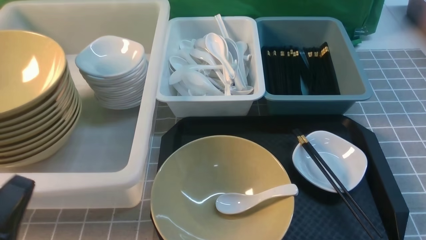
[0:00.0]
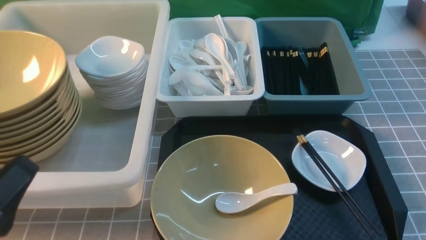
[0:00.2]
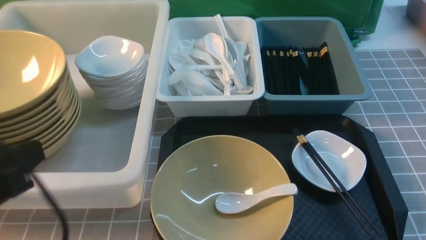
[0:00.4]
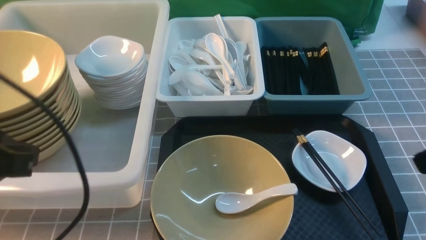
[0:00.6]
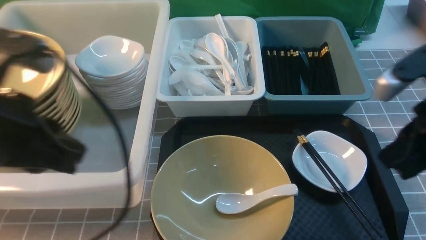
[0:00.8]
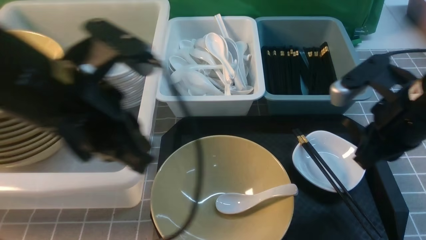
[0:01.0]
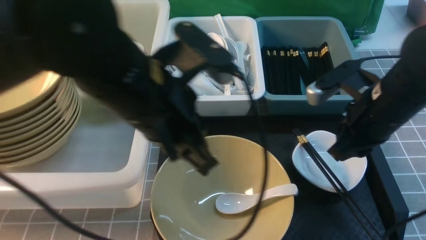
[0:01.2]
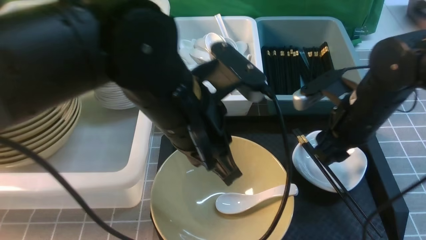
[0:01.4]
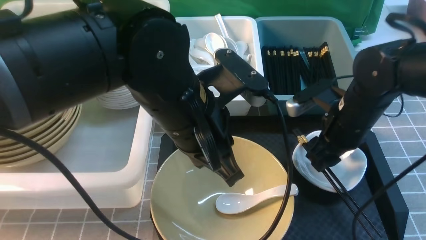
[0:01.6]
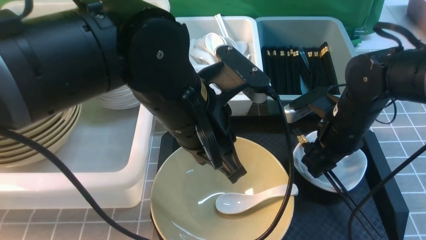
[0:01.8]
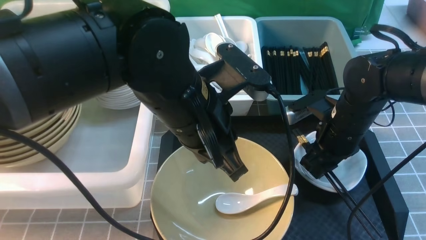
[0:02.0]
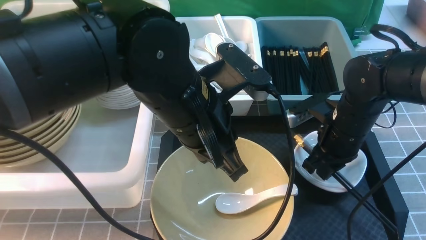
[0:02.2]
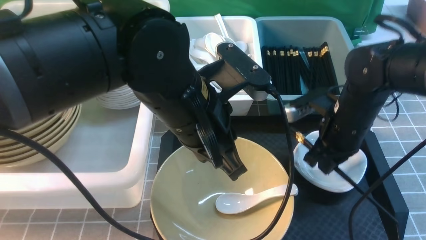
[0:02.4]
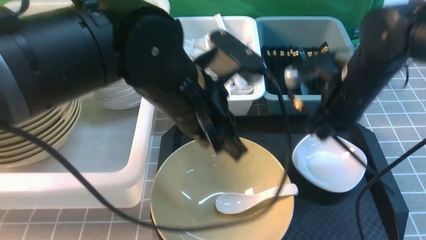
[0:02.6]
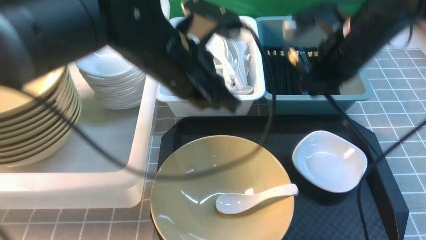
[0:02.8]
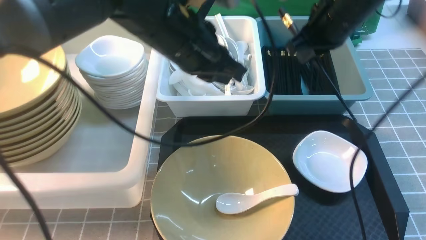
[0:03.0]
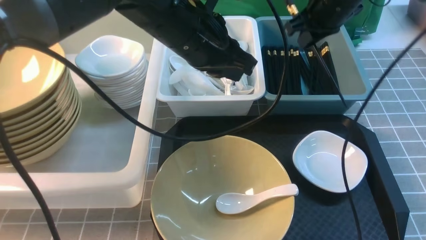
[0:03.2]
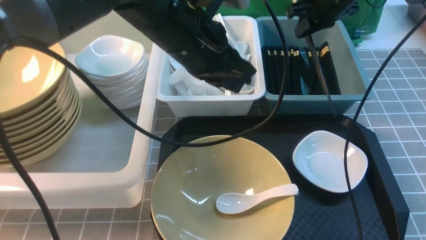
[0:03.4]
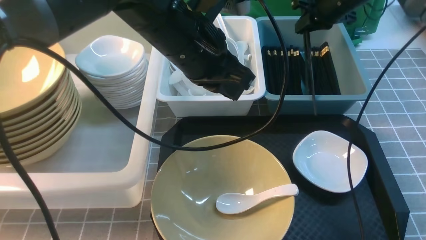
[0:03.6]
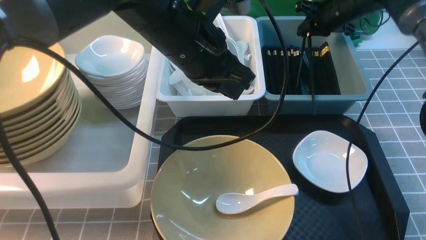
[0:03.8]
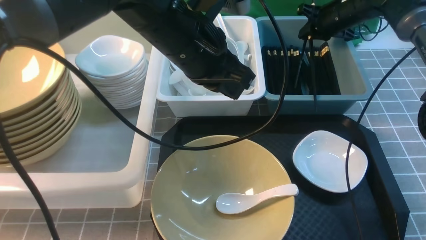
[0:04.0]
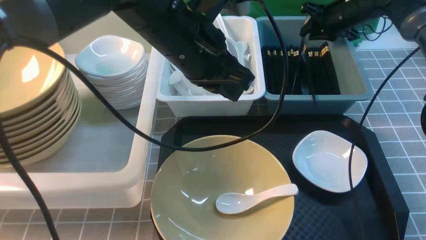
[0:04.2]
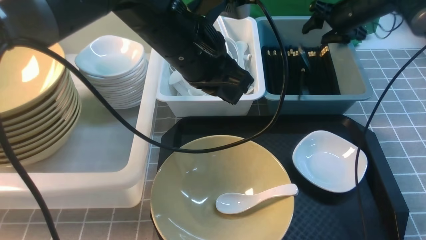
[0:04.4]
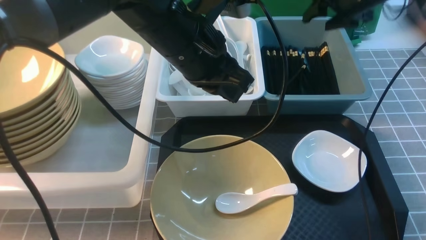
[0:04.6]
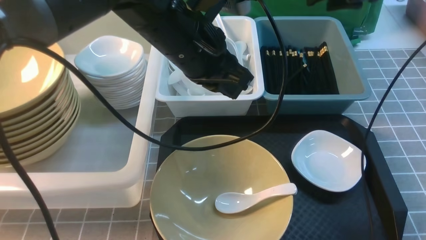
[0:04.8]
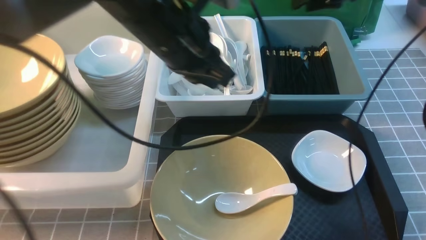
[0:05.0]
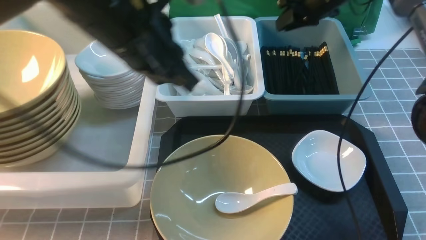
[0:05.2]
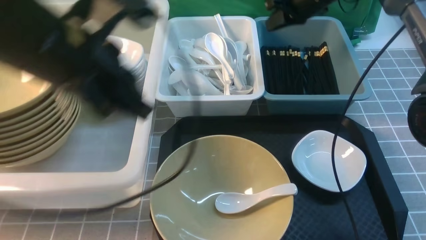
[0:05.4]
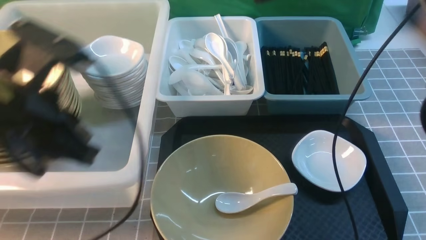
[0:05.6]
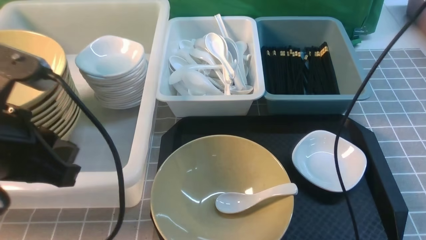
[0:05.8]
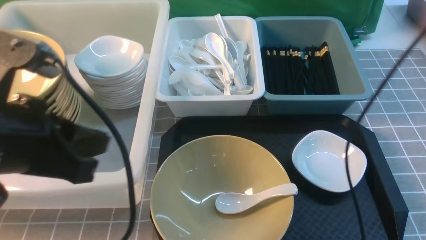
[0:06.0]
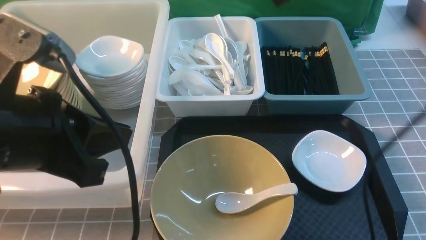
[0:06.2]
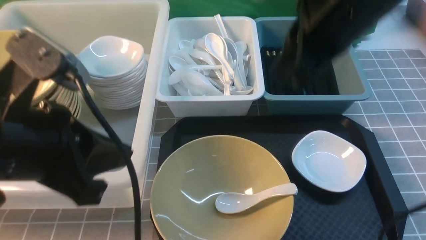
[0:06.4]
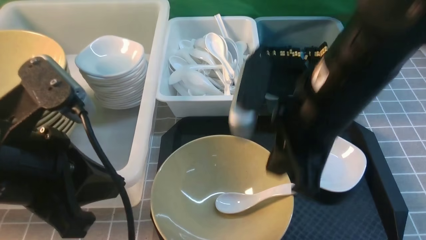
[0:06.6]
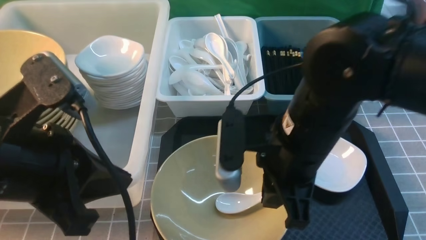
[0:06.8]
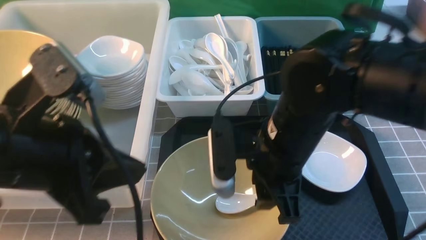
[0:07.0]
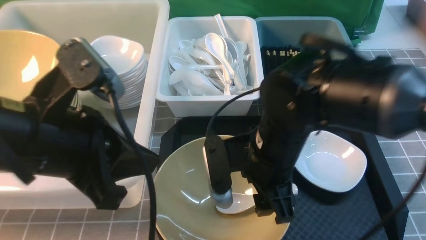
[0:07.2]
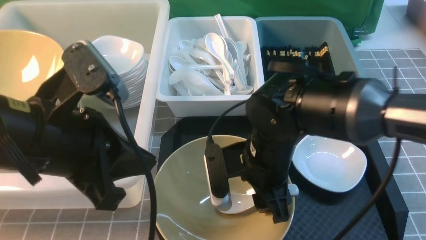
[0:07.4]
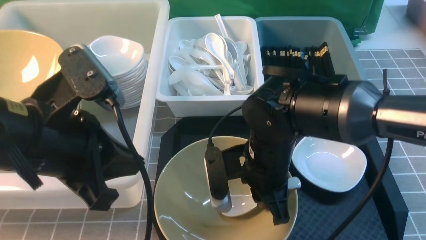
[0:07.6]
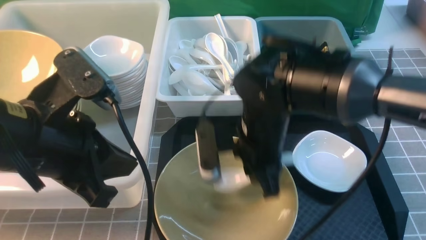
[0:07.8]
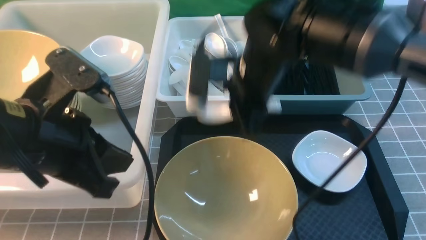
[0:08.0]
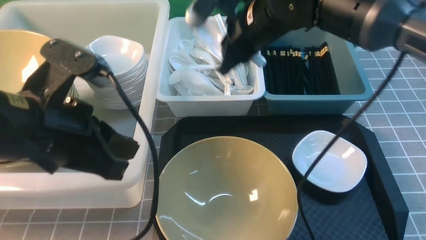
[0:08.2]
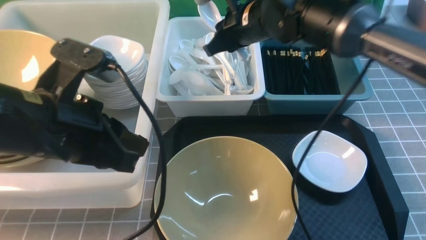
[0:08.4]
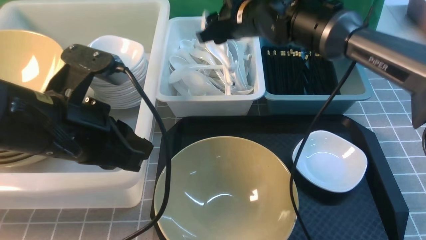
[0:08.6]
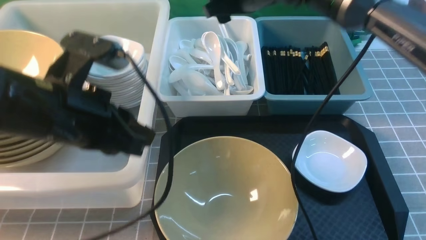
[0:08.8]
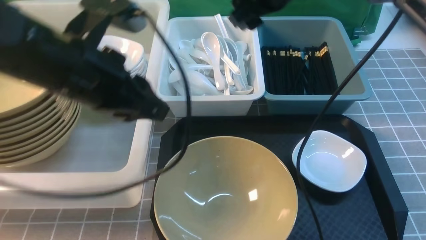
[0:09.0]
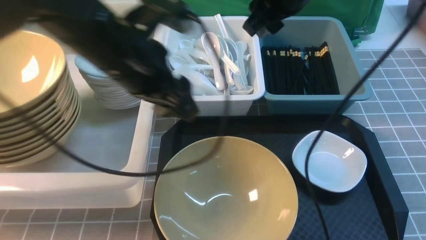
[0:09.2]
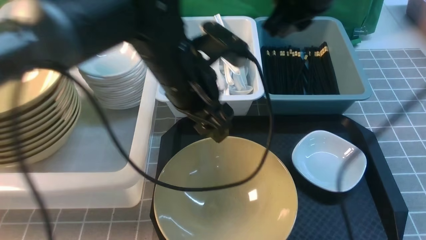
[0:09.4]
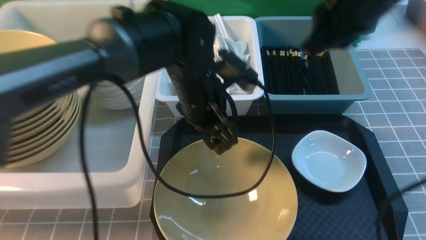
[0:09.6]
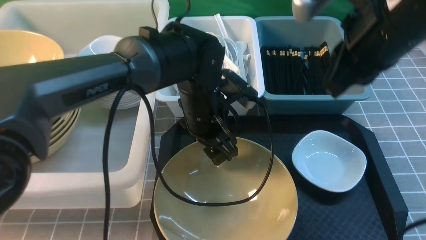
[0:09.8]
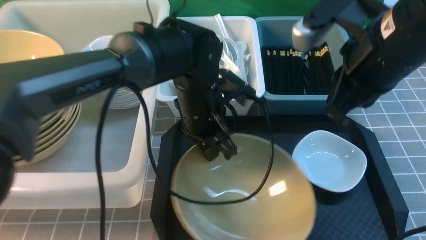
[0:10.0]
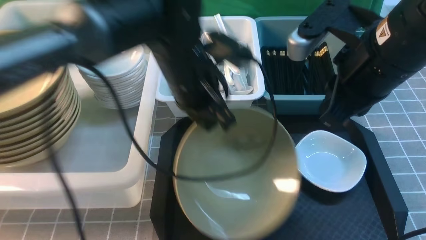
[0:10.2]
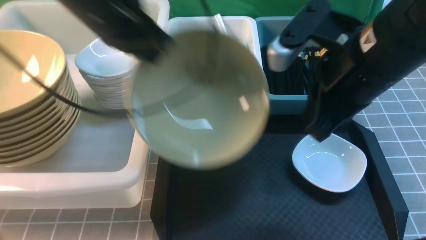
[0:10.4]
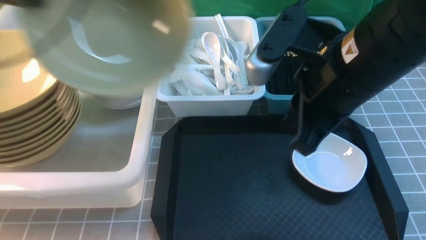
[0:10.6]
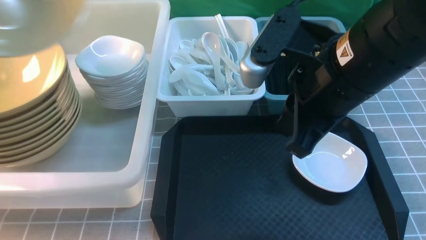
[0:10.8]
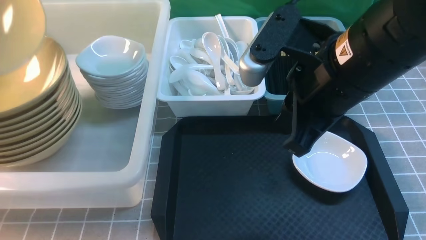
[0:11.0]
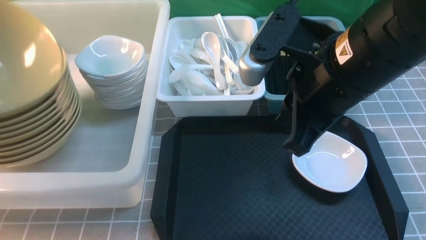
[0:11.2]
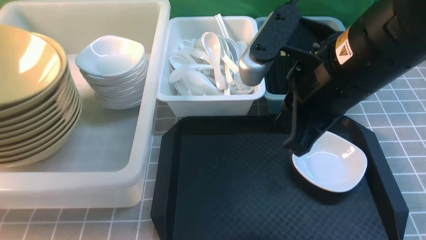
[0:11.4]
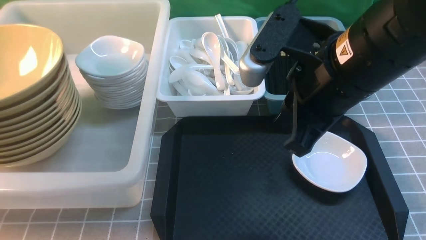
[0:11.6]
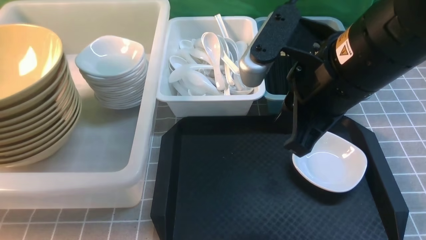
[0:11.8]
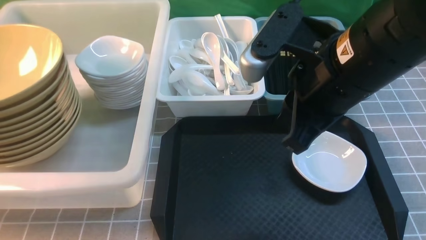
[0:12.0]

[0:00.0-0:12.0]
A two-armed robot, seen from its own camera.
Task of the whole recording: on grey table put chopsticks spoon bowls plates into blue grey white boxes.
Step, 0:00.0 to 0:02.2: use the right arm to grab the chopsticks.
Step, 0:02.6 to 0:04.4: use the right arm to put the chopsticks into the small storage box on the right.
Step, 0:04.6 to 0:07.8: use the right arm to grab the soup spoon in the middle.
Step, 0:08.0 to 0:08.6: use the right arm to put the soup spoon into the small storage box in the middle.
Step, 0:08.8 to 0:10.2: use the left arm to grab the yellow noodle bowl on the left.
Step, 0:10.4 to 0:11.4: use the left arm to put the noodle bowl into the large storage box on the left.
0:00.0 to 0:01.6: The left gripper moves to the right and forward, roughly 25 cm, while the right gripper is displaced forward by some 25 cm, and opens its fingers.
0:01.6 to 0:03.0: The right gripper travels upward and forward by about 15 cm, and closes its fingers. The left gripper travels forward by approximately 10 cm.
0:03.0 to 0:04.4: The right gripper heads forward, to the right and downward, covering roughly 20 cm, and opens its fingers.
0:04.4 to 0:06.0: The right gripper heads upward, backward and to the left, covering about 30 cm, and closes up. The left gripper heads backward and to the left, covering about 20 cm.
0:06.0 to 0:07.6: The right gripper heads downward and backward, covering about 25 cm, and opens up.
0:07.6 to 0:09.0: The left gripper heads forward, covering roughly 10 cm, and opens up. The right gripper shifts about 20 cm upward and forward, and opens.
0:09.0 to 0:10.4: The left gripper goes about 10 cm forward and to the left, moves some 10 cm downward and comes back, and closes up, while the right gripper goes some 15 cm backward, and closes up.
0:10.4 to 0:12.0: The left gripper moves to the left and backward, some 10 cm, and opens up.

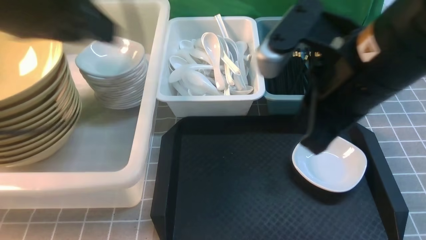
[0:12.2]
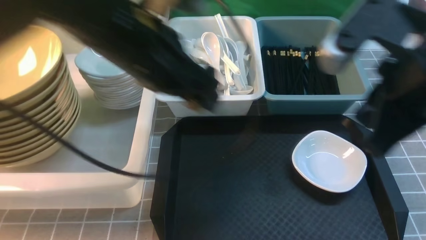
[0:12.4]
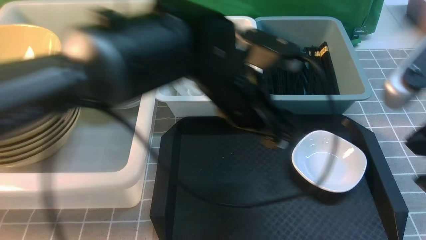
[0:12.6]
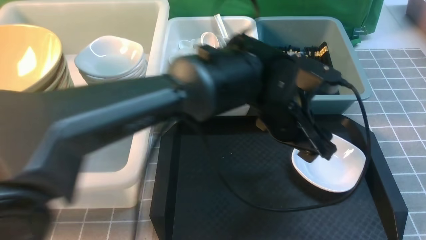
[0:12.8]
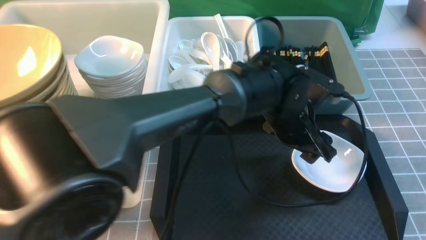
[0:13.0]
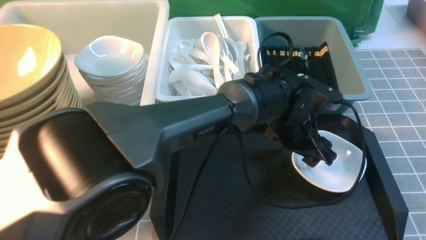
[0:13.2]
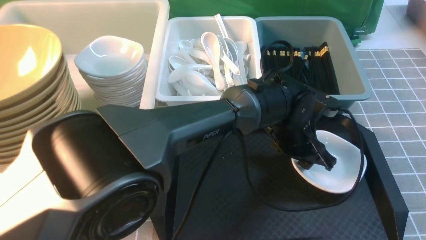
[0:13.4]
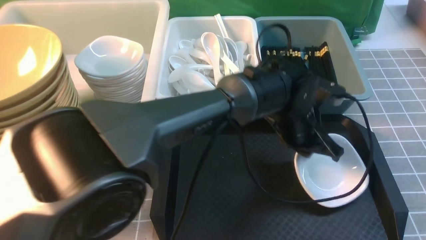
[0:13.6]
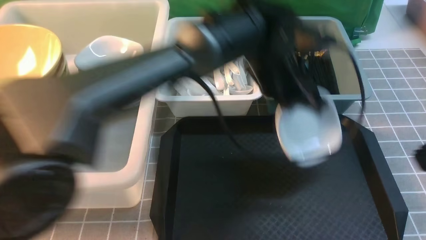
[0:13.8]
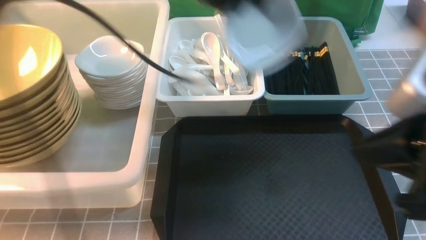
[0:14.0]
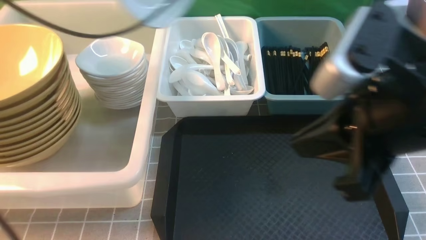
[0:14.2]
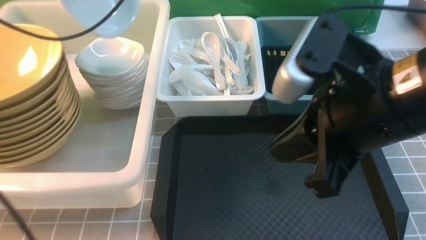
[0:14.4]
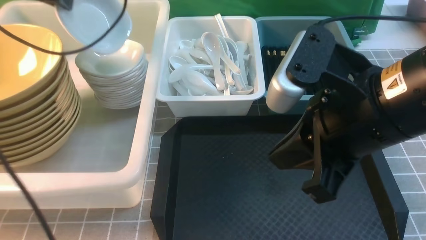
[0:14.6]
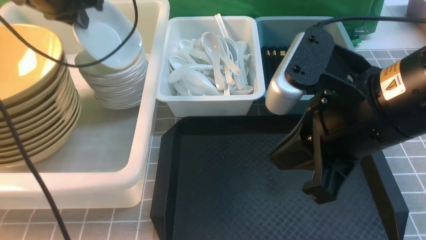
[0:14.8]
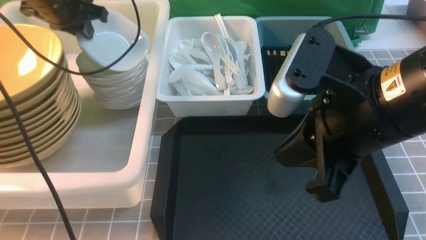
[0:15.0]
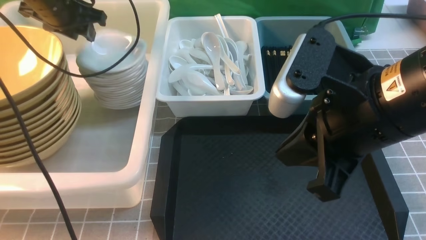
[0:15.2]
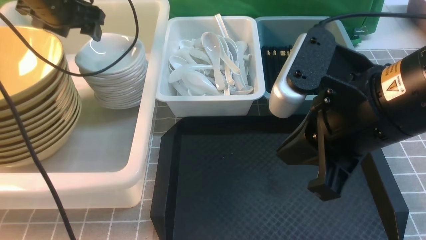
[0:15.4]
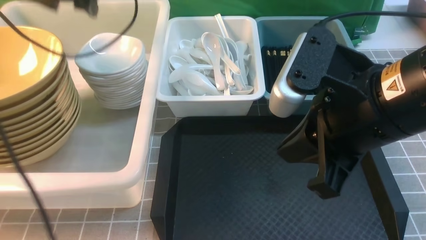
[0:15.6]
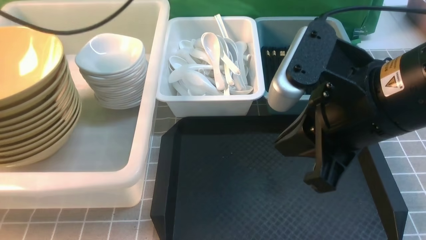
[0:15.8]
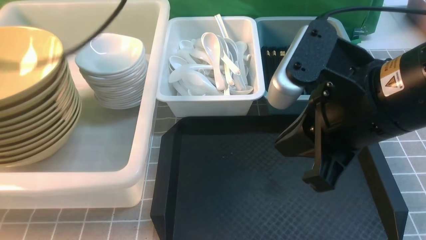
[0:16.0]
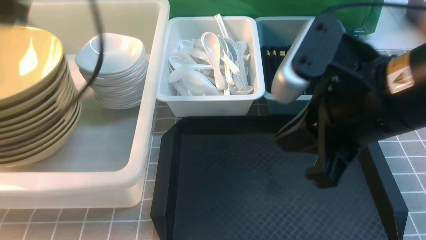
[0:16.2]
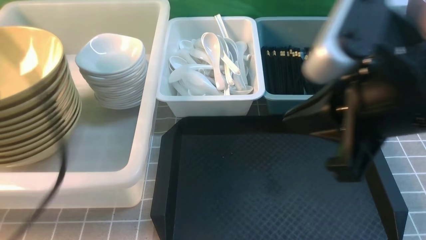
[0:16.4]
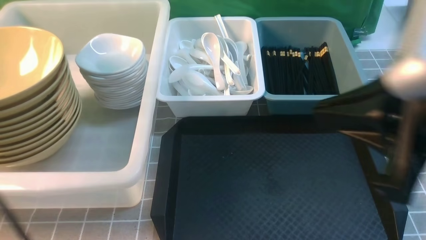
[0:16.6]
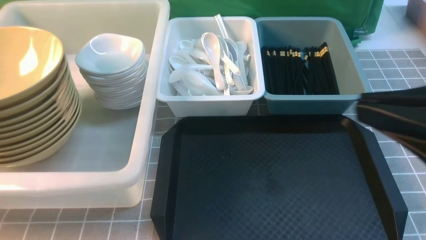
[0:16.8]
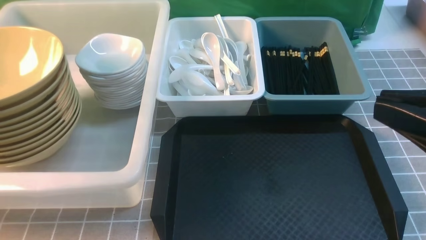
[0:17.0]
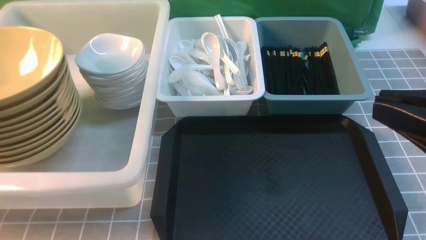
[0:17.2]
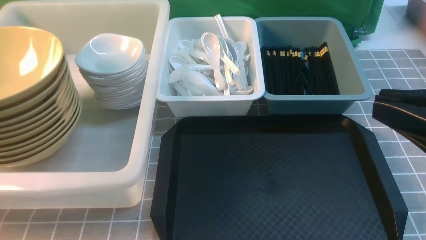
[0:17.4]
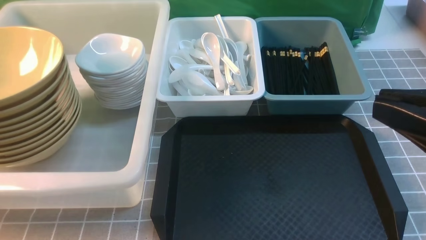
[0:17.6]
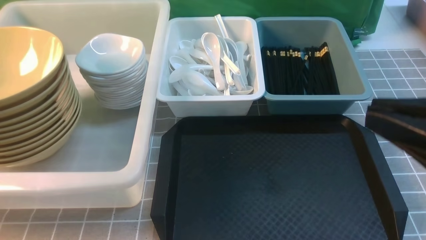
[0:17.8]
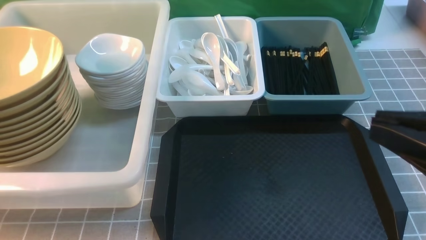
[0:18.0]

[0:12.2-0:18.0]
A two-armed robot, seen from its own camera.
Task of the whole recording: on grey table put chopsticks spoon bowls plates into blue grey white boxes.
Step, 0:12.2 to 0:13.6: use the left arm to grab the plate.
Step, 0:13.8 to 0:15.4: use the left arm to put the plate into the large storage box on the left.
0:12.2 to 0:13.6: The right gripper travels to the right and backward by roughly 15 cm, while the left gripper goes some 35 cm to the right and downward, and closes up.
0:13.6 to 0:15.0: The left gripper is displaced to the left by roughly 35 cm. The right gripper is displaced to the left and forward by some 15 cm.
0:15.0 to 0:16.6: The right gripper travels to the right and backward by about 5 cm, while the left gripper goes approximately 40 cm backward, and opens, then closes again.
0:16.6 to 0:18.0: The right gripper shifts about 5 cm backward.
